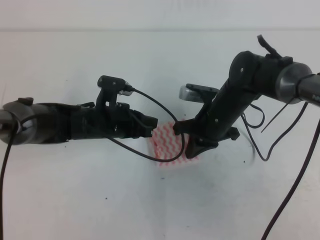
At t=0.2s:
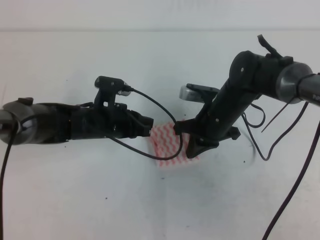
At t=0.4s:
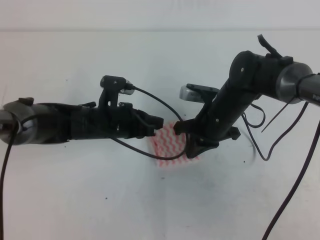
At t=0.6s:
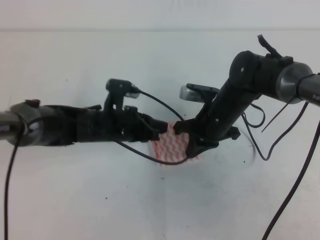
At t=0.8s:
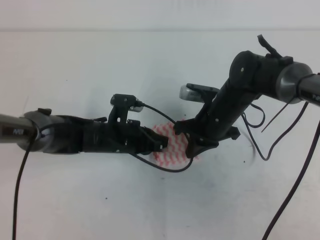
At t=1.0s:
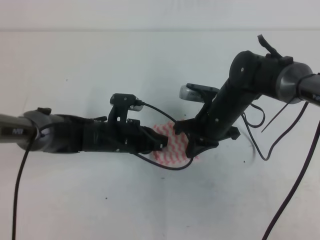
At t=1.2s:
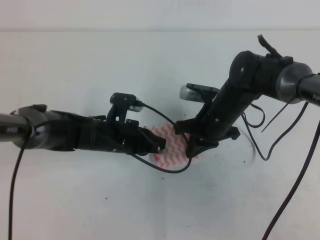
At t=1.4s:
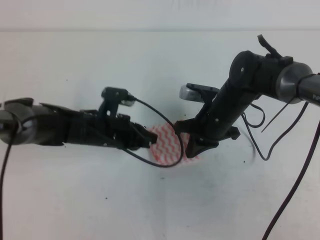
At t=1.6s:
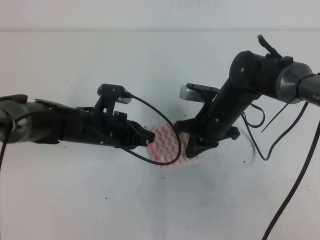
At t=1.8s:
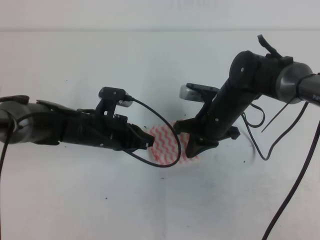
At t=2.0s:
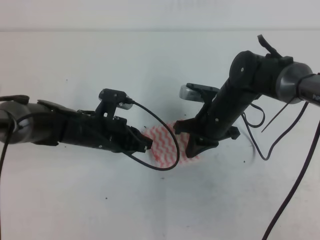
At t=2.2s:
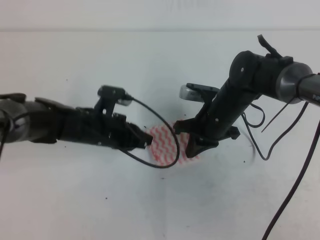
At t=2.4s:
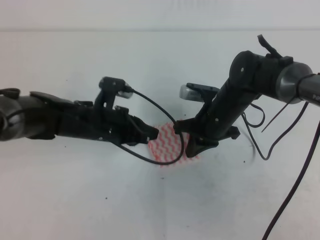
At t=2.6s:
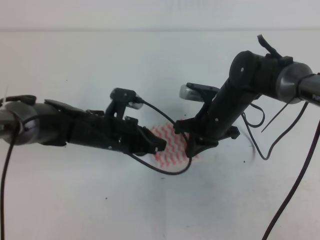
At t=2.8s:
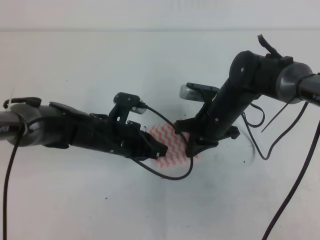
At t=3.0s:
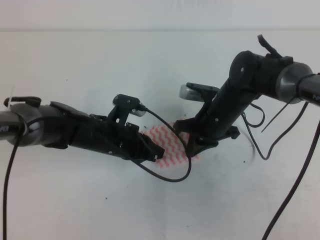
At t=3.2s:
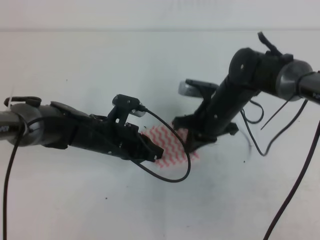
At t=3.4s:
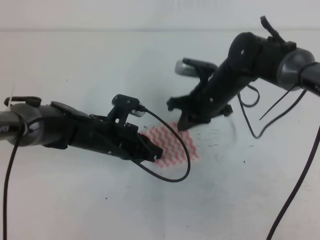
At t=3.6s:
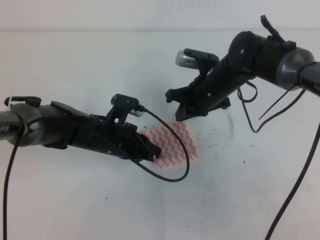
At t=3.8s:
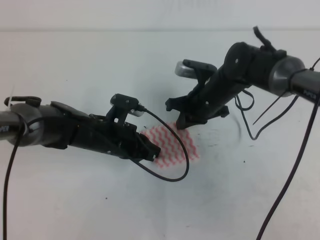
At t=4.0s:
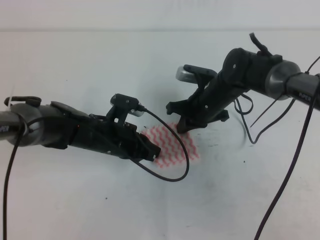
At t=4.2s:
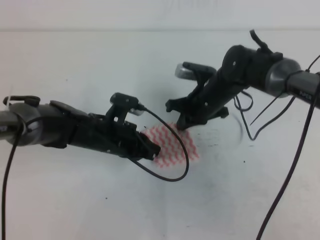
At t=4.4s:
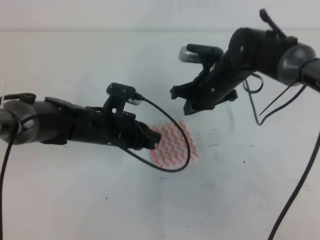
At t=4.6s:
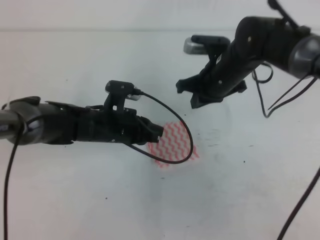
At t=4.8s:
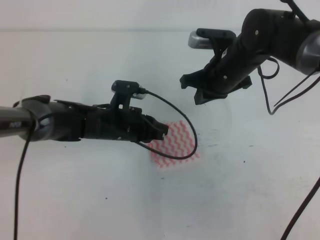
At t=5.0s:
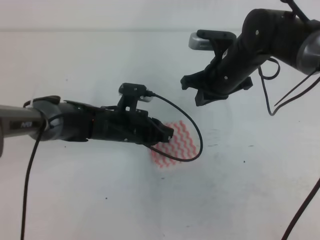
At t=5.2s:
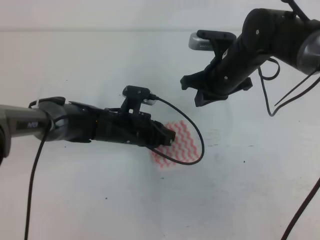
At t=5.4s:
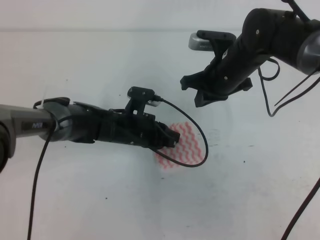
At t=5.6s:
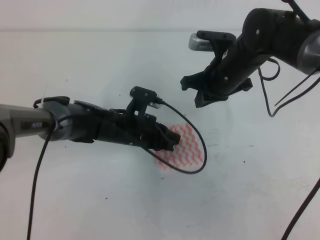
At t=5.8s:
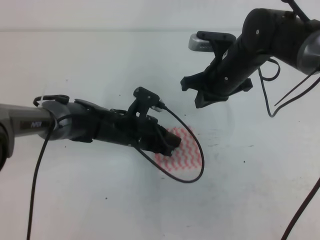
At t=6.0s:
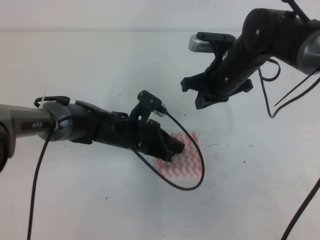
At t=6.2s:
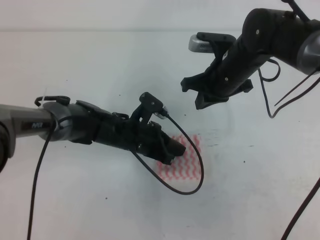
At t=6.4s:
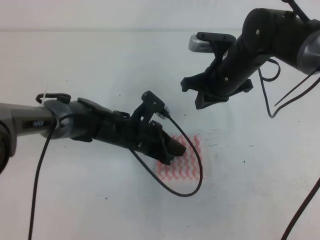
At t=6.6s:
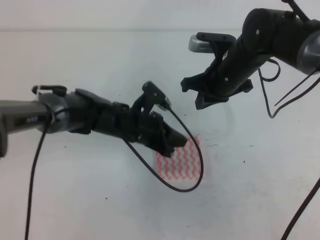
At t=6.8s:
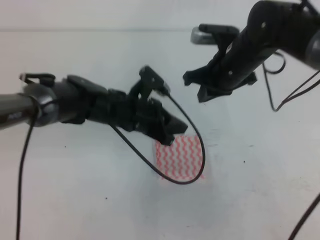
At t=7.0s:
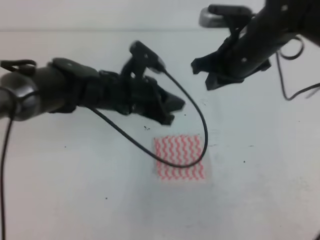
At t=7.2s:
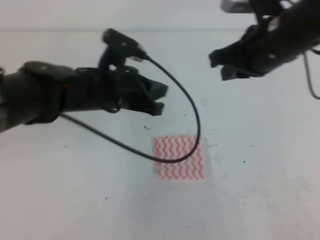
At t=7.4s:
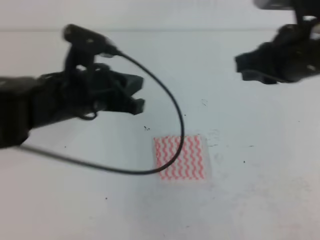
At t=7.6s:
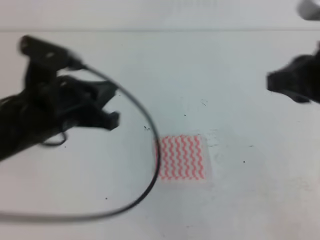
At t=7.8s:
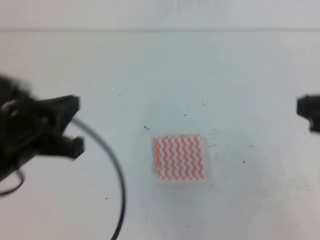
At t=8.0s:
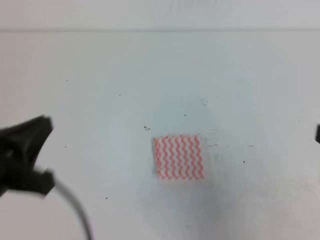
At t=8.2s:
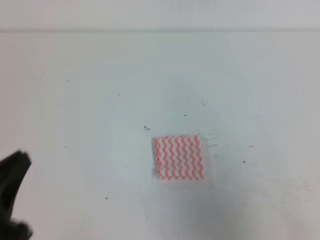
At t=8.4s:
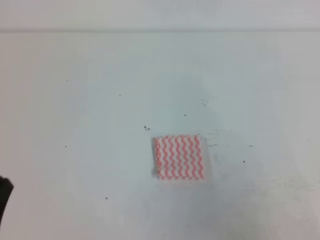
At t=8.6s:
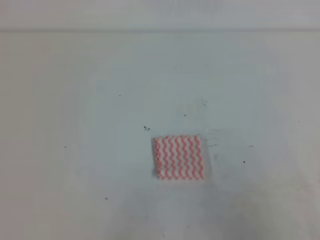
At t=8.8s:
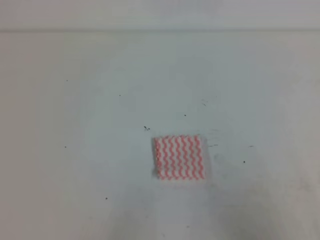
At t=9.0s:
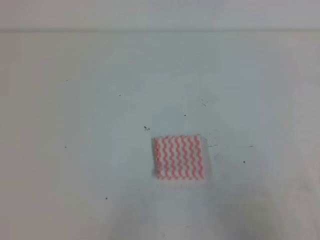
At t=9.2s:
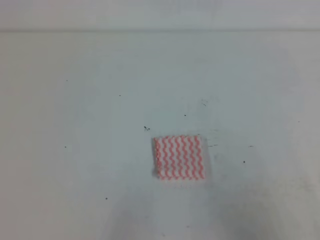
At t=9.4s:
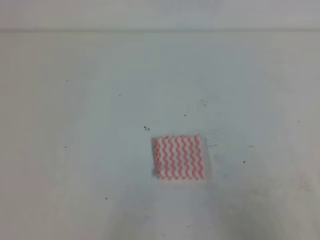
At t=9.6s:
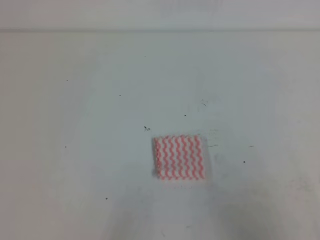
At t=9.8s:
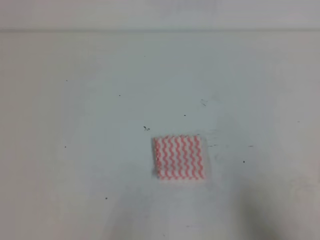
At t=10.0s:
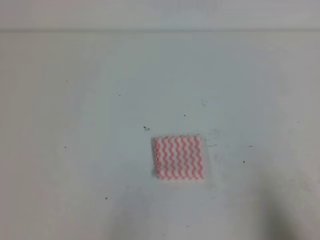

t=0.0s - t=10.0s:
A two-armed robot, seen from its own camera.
t=0.0s - t=4.2s: The grippers make only small movements.
t=4.2s - t=5.8s: The left gripper changes place by about 5 cm; the right gripper is displaced upward by approximately 5 cm.
t=5.8s - t=7.2s: The right gripper travels upward and backward by roughly 10 cm. Meanwhile the left gripper shifts about 15 cm upward.
t=7.2s - t=8.6s: The right gripper heads backward and to the right, covering about 30 cm. Meanwhile the left gripper is displaced backward and to the left by some 30 cm.
t=8.6s - t=10.0s: The right gripper travels downward by approximately 5 cm.

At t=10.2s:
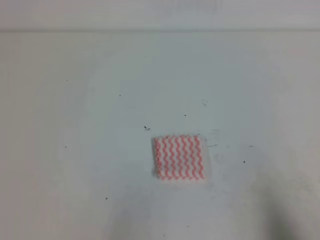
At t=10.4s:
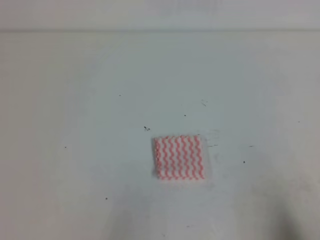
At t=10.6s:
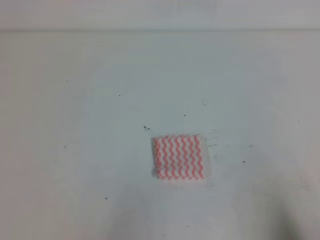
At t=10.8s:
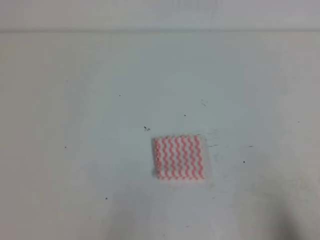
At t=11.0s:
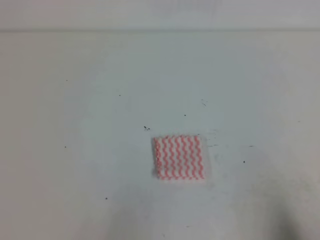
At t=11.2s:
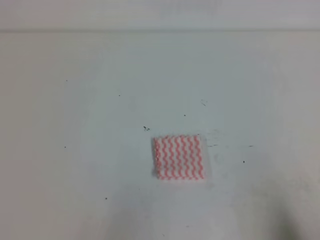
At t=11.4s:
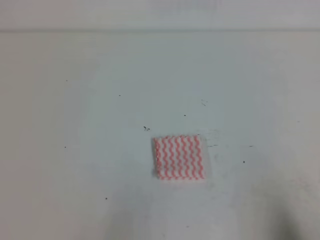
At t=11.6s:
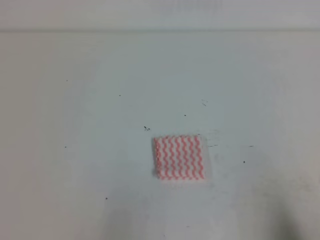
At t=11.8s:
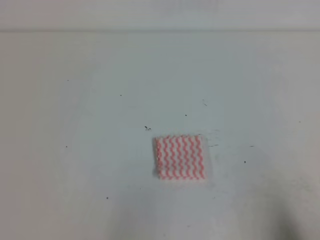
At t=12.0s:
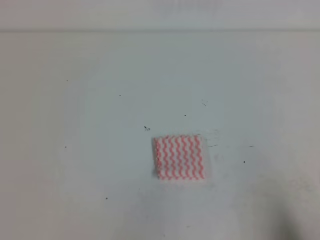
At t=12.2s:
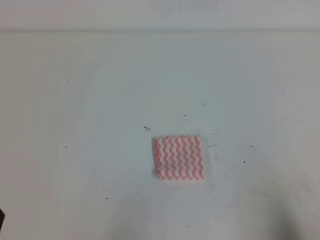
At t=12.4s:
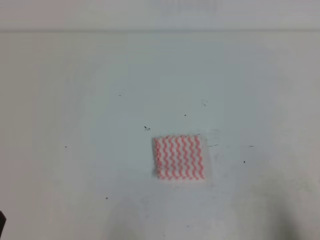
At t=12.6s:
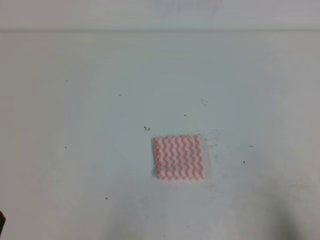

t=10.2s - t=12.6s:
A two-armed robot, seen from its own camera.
t=10.2s - t=11.4s: Both grippers stay put.
